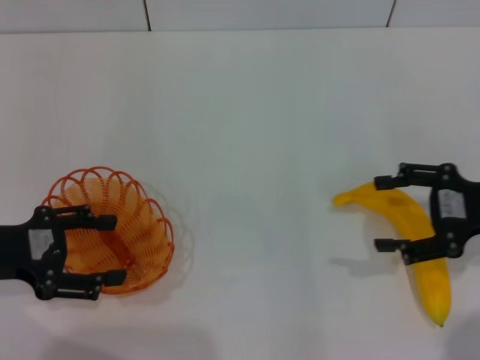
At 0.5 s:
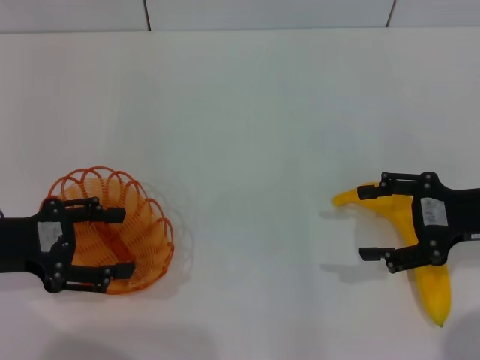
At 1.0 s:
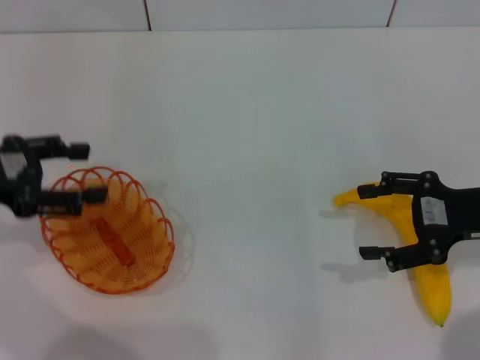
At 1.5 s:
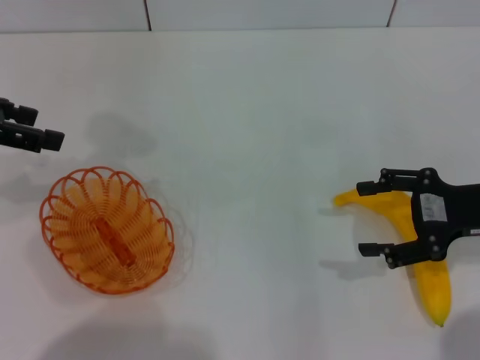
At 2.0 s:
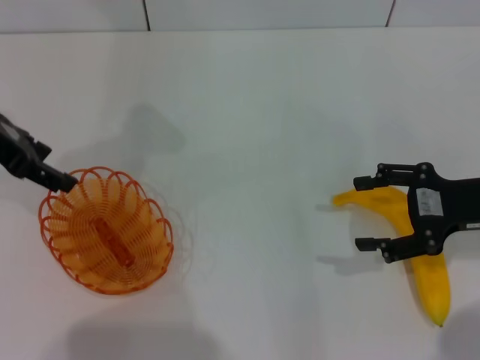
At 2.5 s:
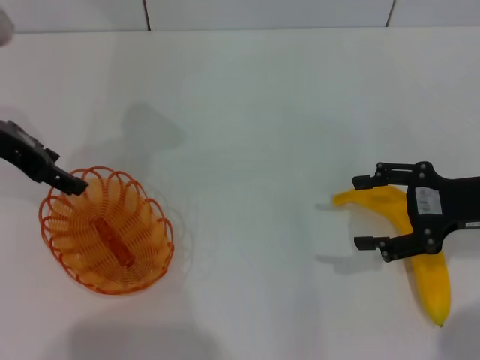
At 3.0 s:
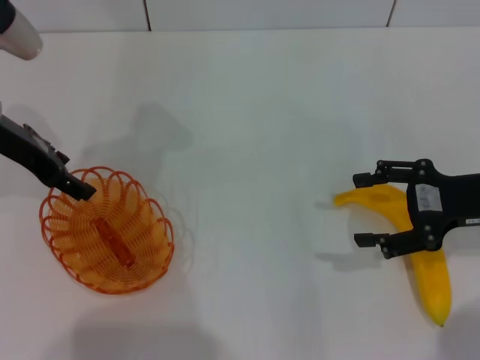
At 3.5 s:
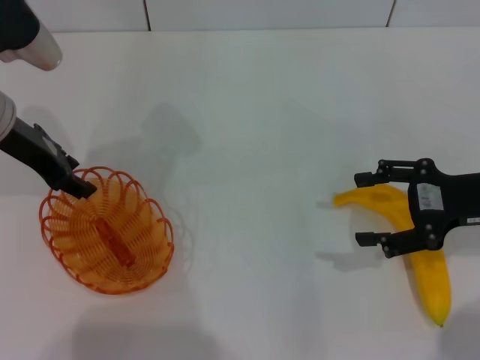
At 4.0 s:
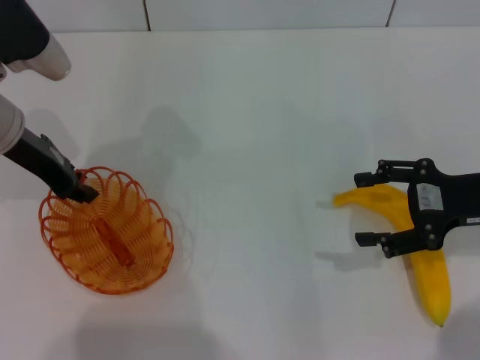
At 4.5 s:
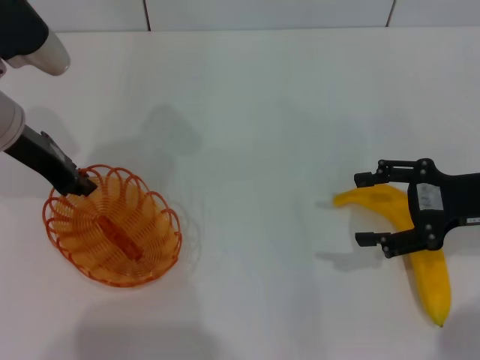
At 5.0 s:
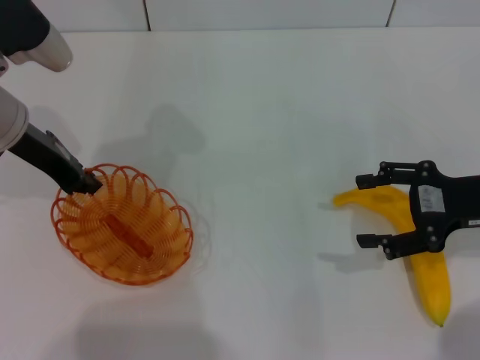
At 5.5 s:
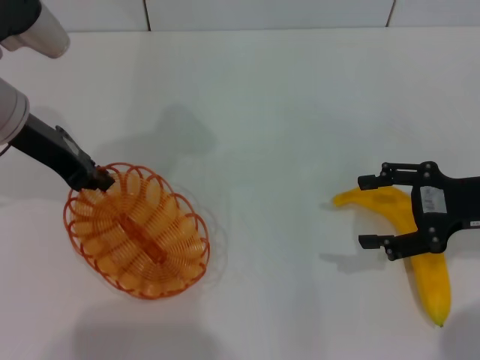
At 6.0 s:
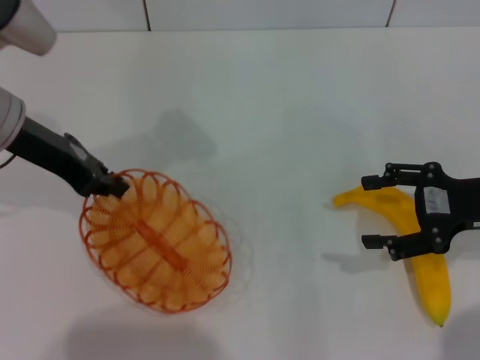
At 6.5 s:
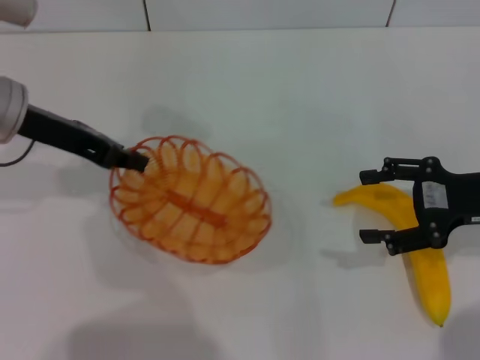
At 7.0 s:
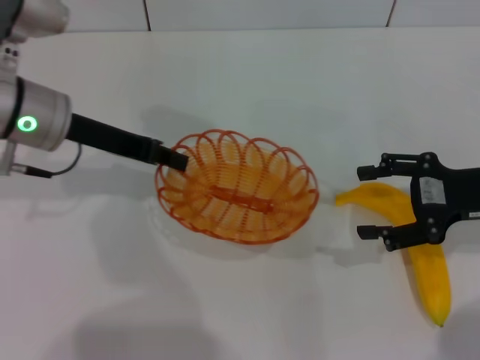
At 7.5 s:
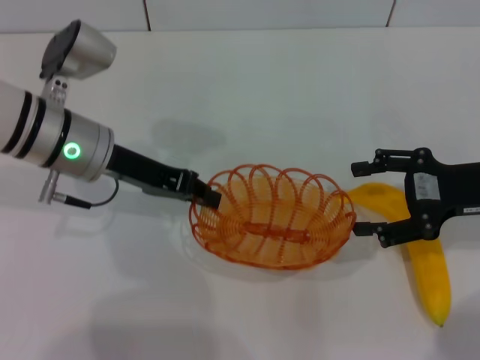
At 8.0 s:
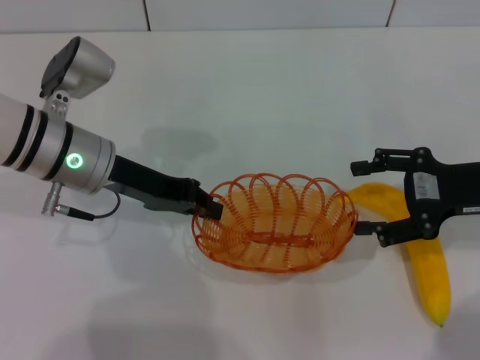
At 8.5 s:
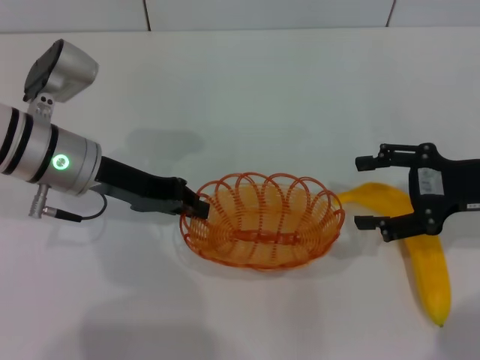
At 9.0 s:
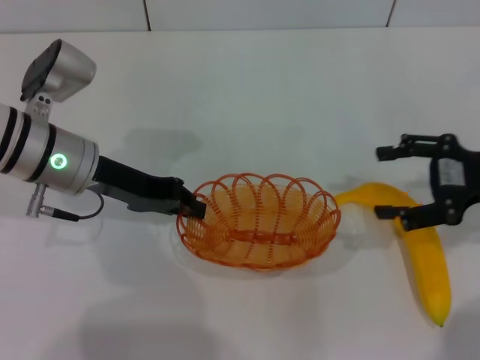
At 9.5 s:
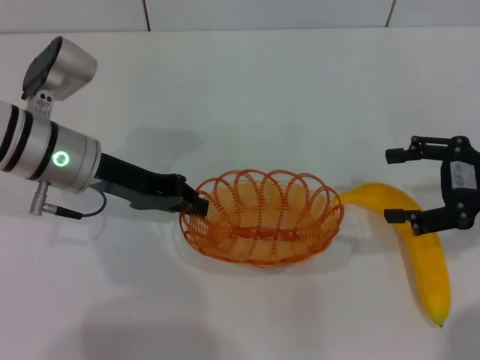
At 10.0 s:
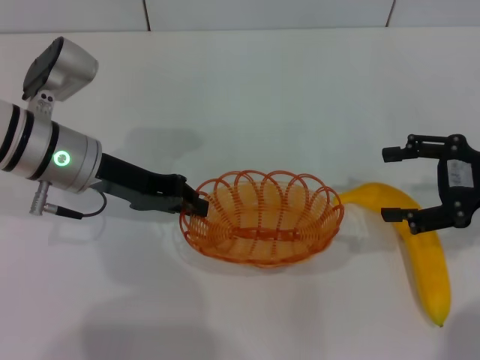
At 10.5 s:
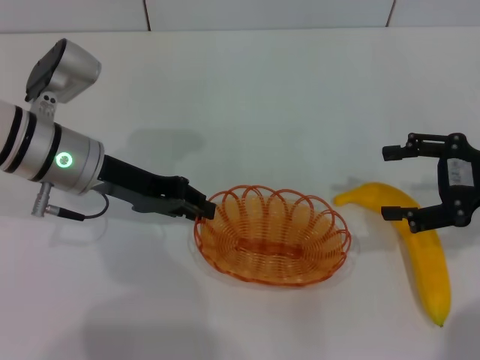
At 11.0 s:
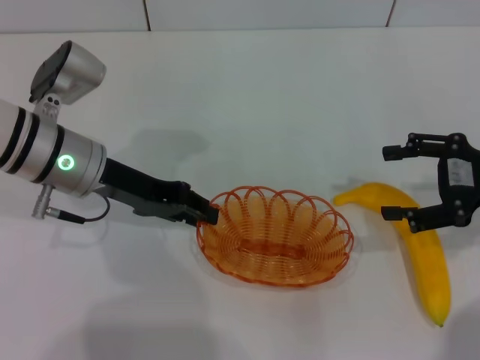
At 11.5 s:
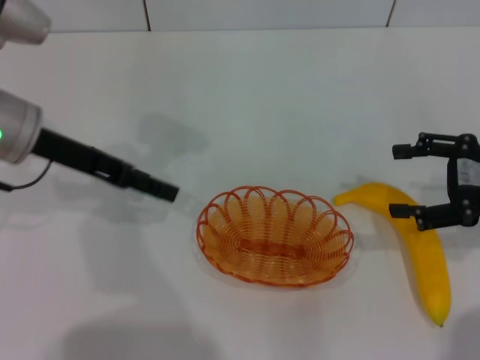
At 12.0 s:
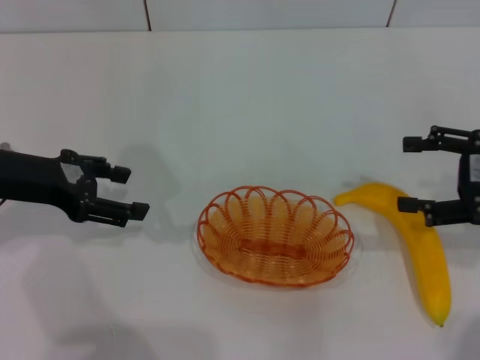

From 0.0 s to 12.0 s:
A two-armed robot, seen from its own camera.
Step, from 0.0 s to 5.5 s: Pick up the basket with the left gripper.
Step, from 6.0 s to 11.0 s: Place the basket in the center of view with the left gripper.
From 0.0 s to 2.0 s: The left gripper heads forward and upward, covering some 15 cm.
From 2.0 s to 4.0 s: The left gripper goes approximately 5 cm downward, and closes.
From 4.0 s to 6.0 s: The left gripper closes up.
From 6.0 s to 8.0 s: The left gripper shifts about 10 cm downward and to the right.
From 8.0 s to 10.0 s: There are only small adjustments of the grippers.
From 10.0 s to 12.0 s: The left gripper goes about 10 cm to the left, and opens.

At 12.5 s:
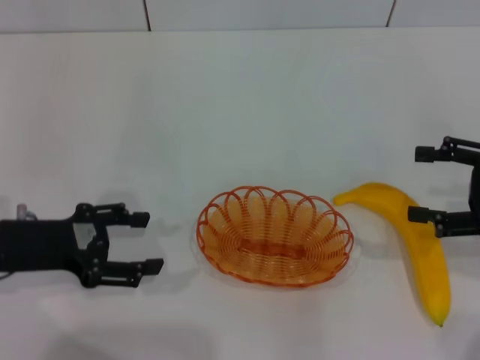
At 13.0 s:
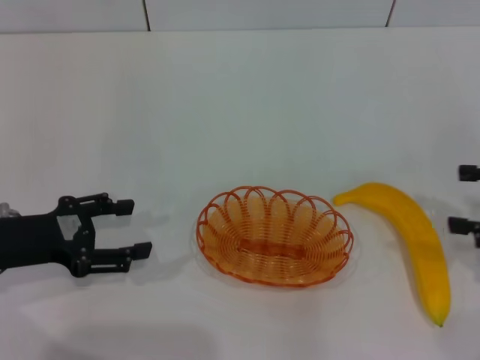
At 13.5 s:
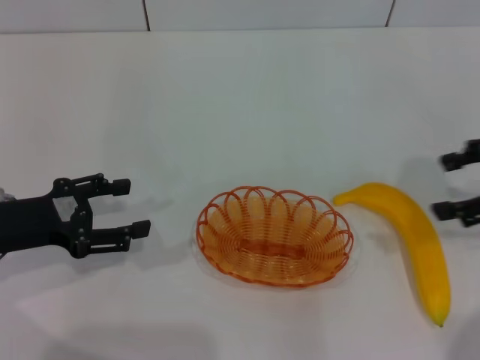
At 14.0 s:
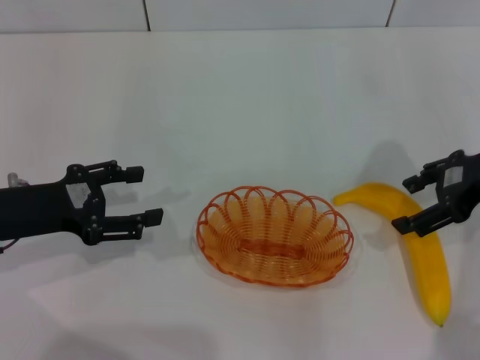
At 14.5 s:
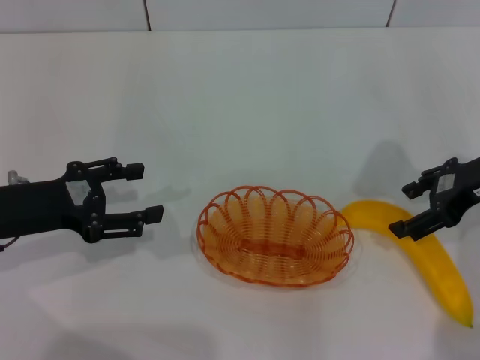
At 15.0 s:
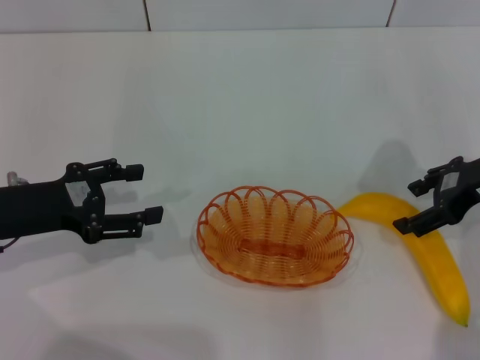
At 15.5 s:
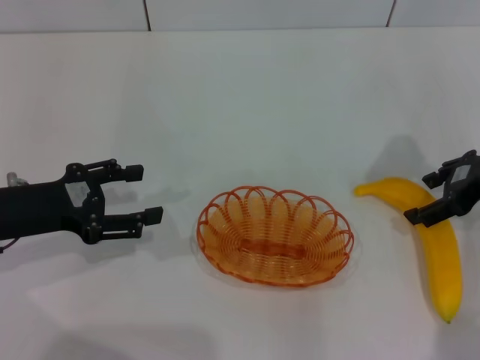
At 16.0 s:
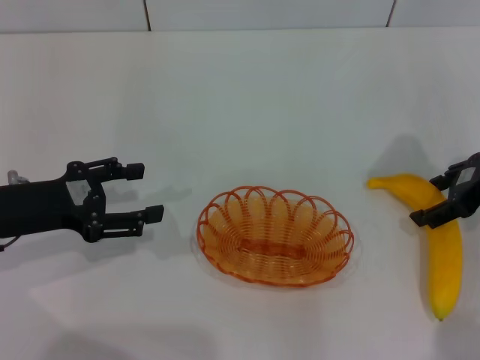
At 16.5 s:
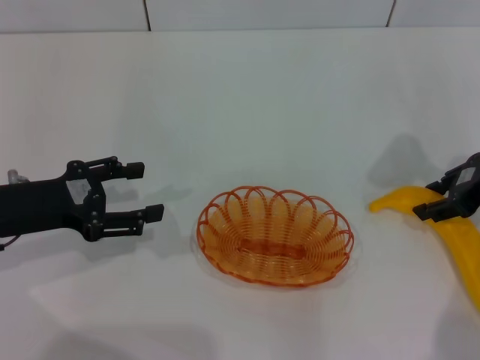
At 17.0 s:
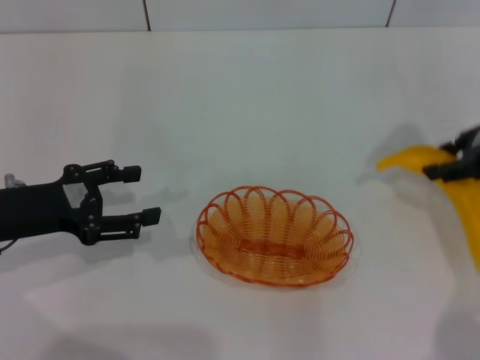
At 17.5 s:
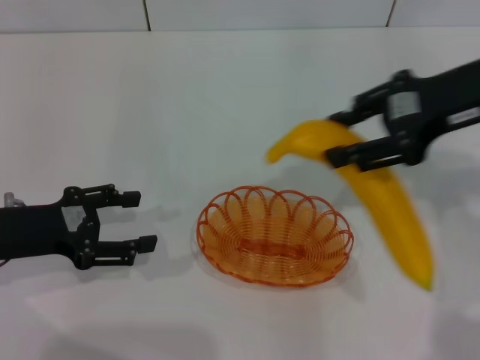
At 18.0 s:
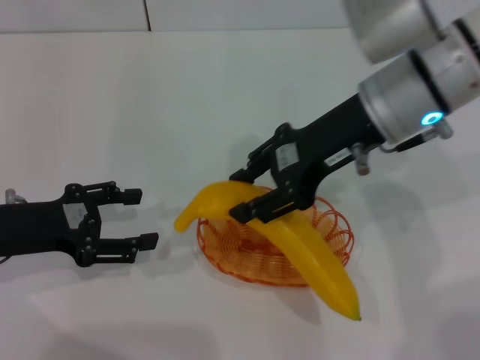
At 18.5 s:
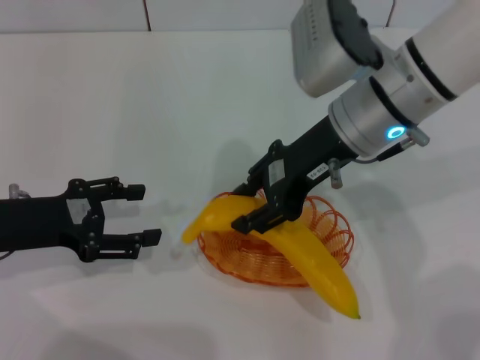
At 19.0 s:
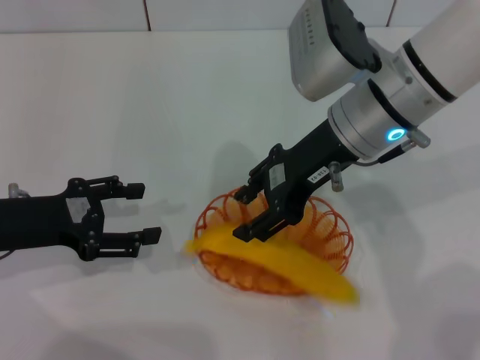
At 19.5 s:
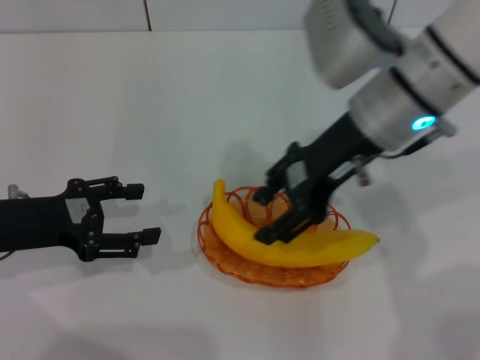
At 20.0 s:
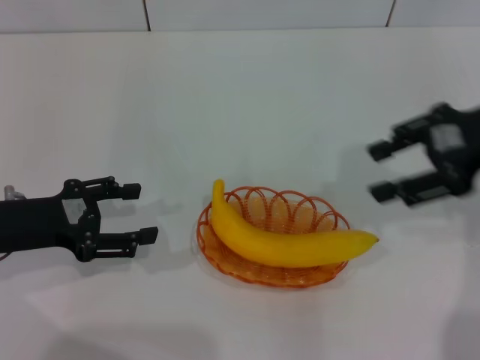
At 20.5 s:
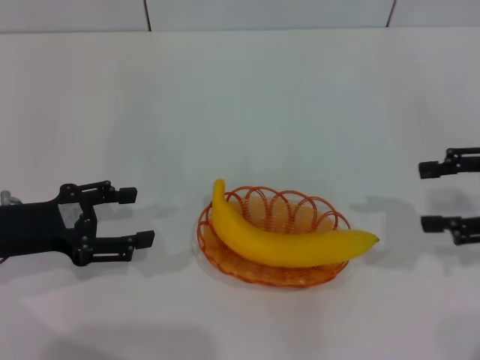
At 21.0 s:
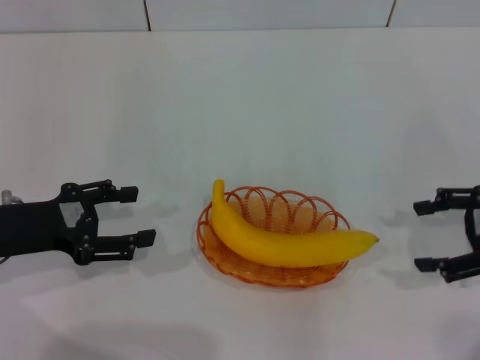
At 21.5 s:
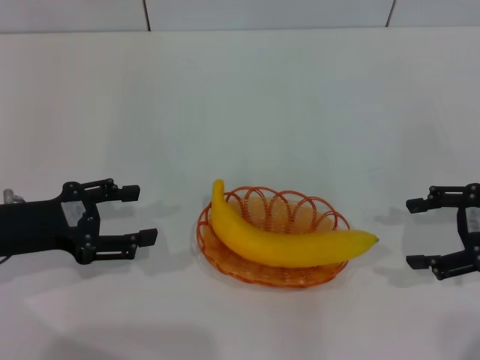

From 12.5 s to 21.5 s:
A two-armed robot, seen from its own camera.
Step, from 12.5 s to 17.0 s: Pick up the banana with the right gripper.
Step, from 17.5 s to 19.5 s: Place the banana into the basket with the right gripper.
From 12.5 s to 14.5 s: The right gripper goes roughly 10 cm forward and to the left.
From 14.5 s to 17.0 s: The right gripper closes its fingers.
From 17.0 s to 19.5 s: The right gripper moves to the left, about 20 cm.
From 19.5 s to 21.5 s: The right gripper shifts approximately 25 cm to the right and downward, and opens its fingers.

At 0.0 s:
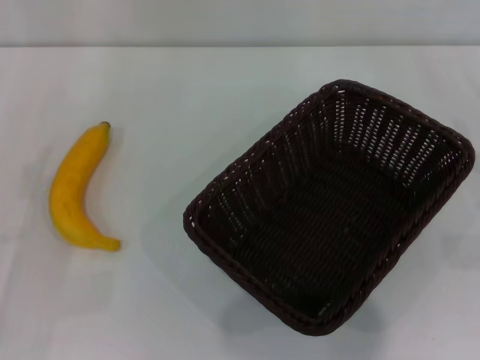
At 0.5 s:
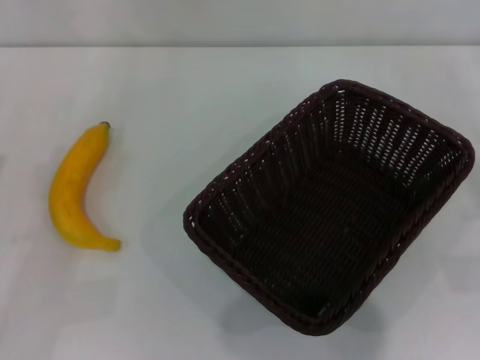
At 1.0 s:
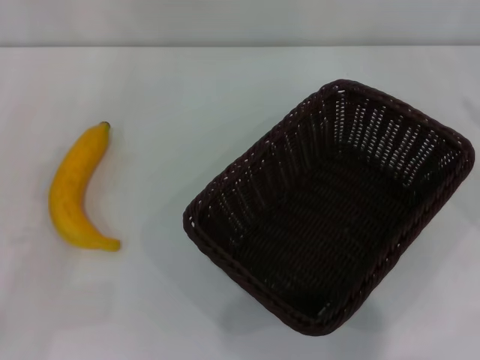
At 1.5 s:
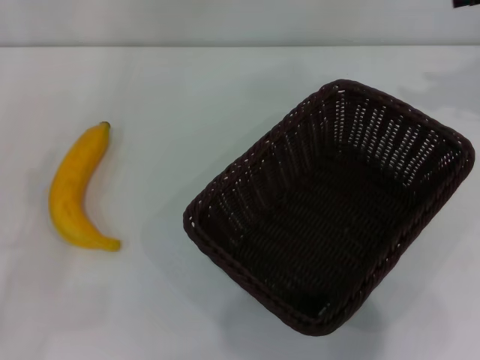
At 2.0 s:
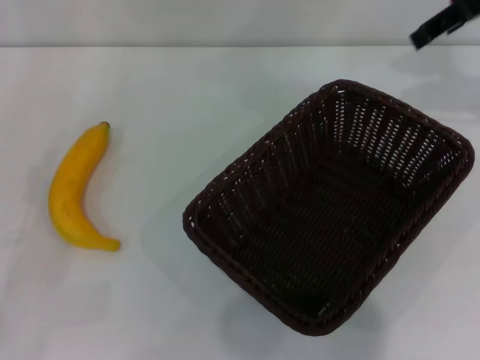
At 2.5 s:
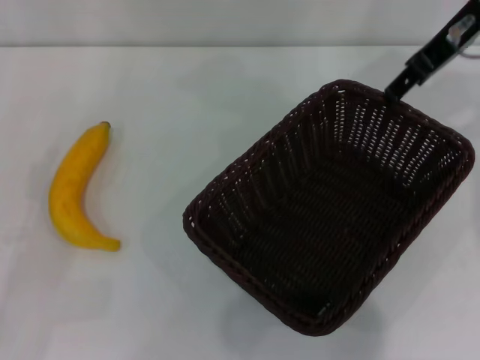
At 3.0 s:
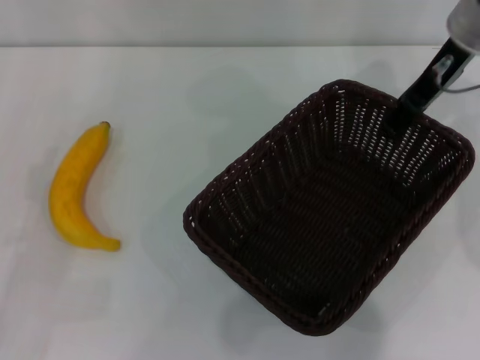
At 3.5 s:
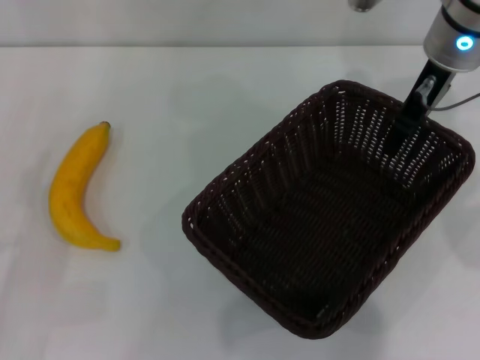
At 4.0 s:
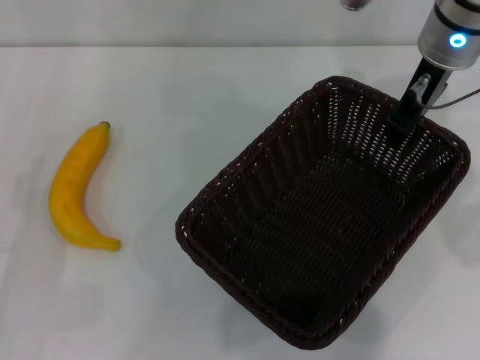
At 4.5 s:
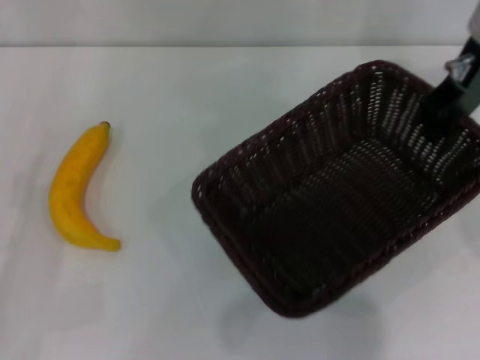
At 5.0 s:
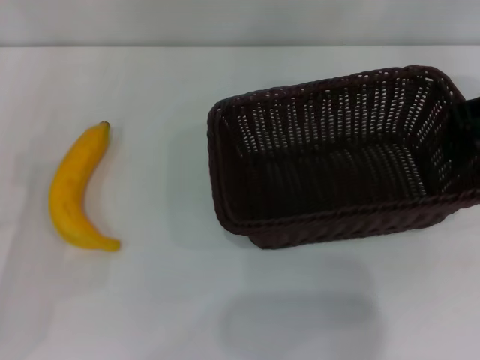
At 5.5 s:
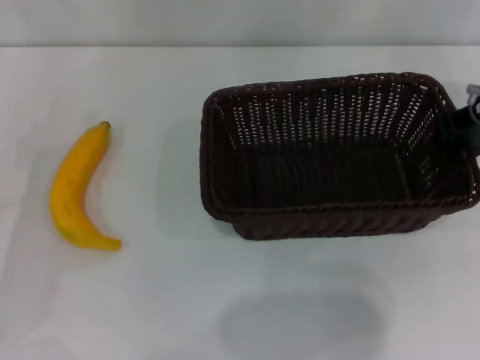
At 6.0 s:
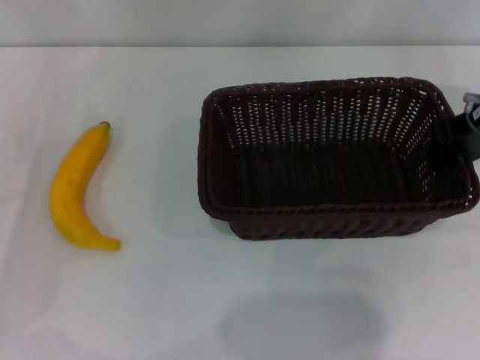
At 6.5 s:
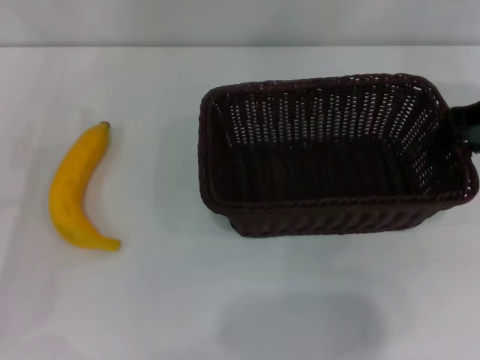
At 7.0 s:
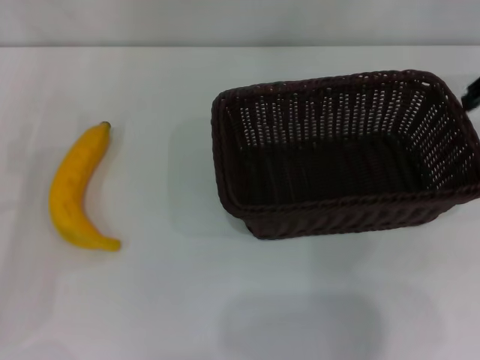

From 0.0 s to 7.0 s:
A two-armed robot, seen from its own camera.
Step, from 0.0 s to 4.0 s: Pick up the dark basket with the right gripper.
Step, from 4.5 s to 7.0 s: Place the dark basket in the center of view with the right gripper.
From 0.0 s to 2.0 s: The right gripper travels upward, forward and to the left by approximately 35 cm.
From 2.0 s to 3.5 s: The right gripper shifts about 15 cm to the left and downward.
From 3.5 s to 5.0 s: The right gripper goes some 10 cm to the right, and closes up.
From 5.0 s to 7.0 s: The grippers stay close to where they were, moving slightly.
